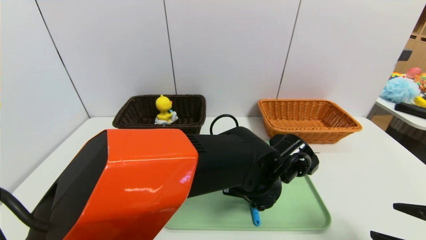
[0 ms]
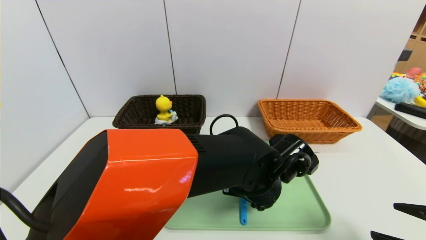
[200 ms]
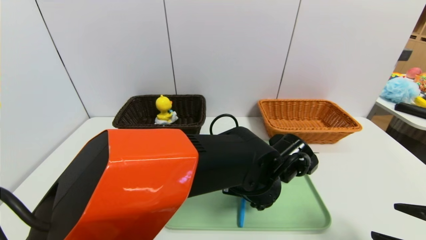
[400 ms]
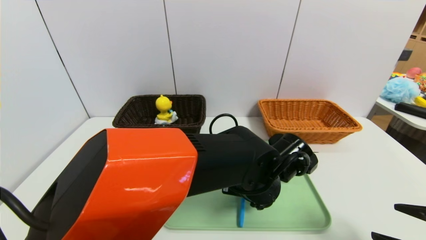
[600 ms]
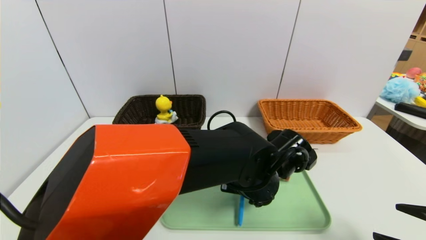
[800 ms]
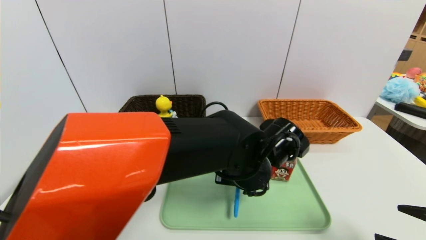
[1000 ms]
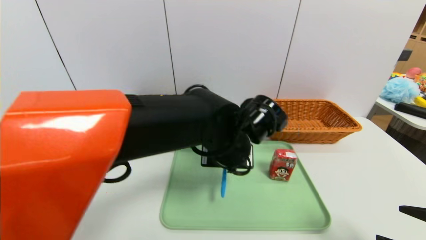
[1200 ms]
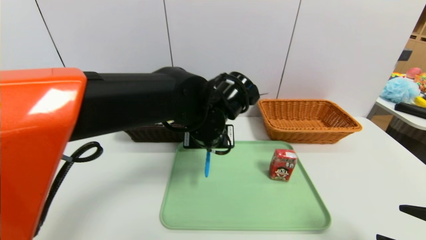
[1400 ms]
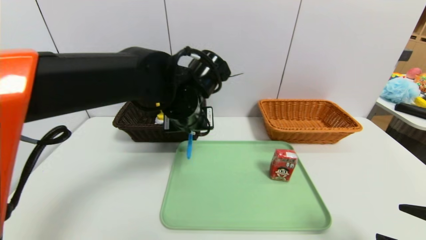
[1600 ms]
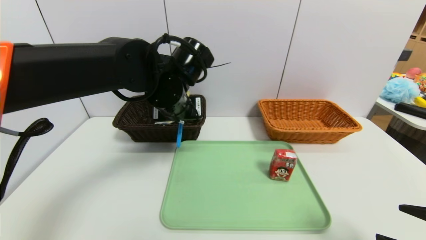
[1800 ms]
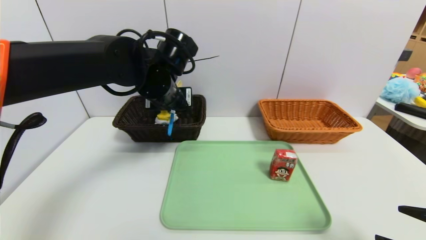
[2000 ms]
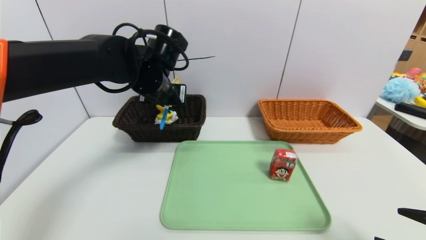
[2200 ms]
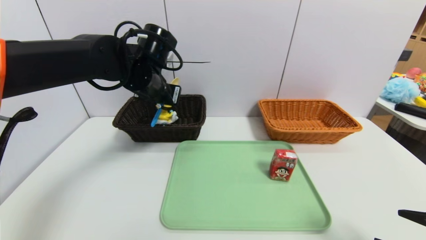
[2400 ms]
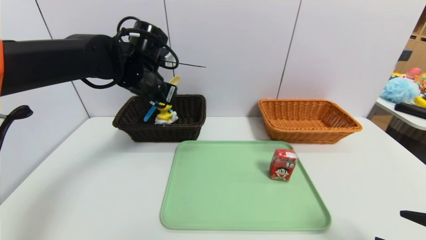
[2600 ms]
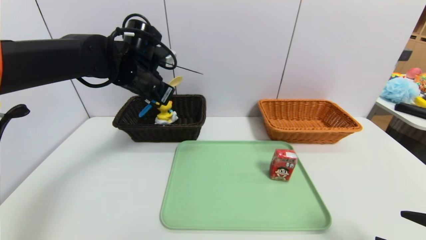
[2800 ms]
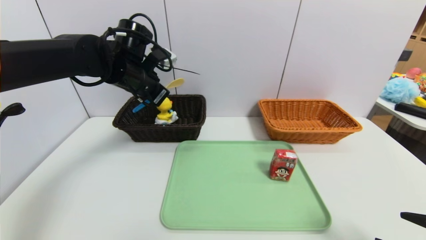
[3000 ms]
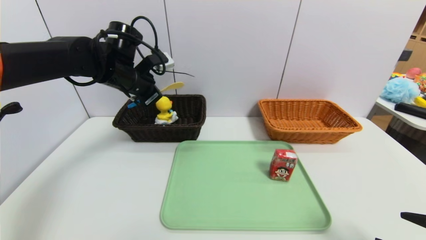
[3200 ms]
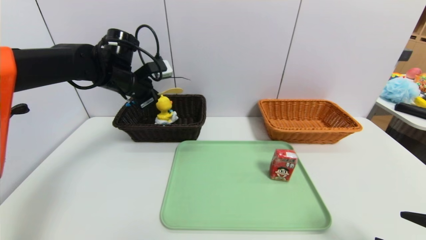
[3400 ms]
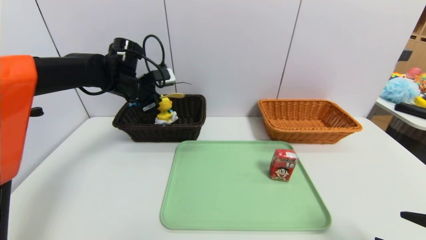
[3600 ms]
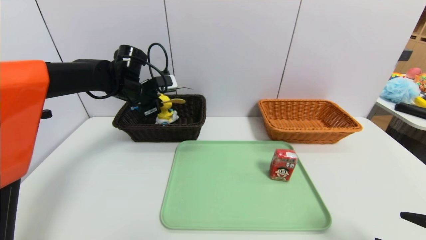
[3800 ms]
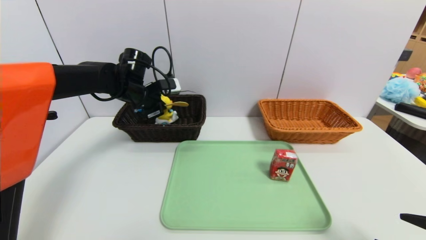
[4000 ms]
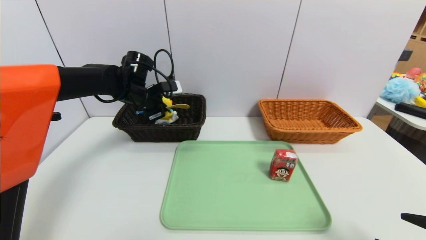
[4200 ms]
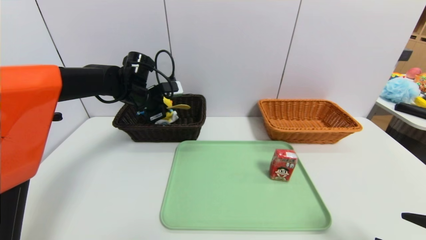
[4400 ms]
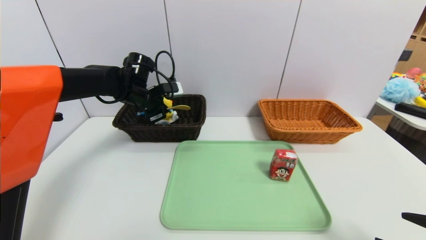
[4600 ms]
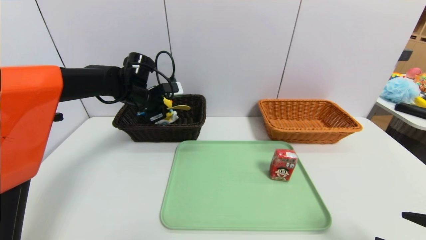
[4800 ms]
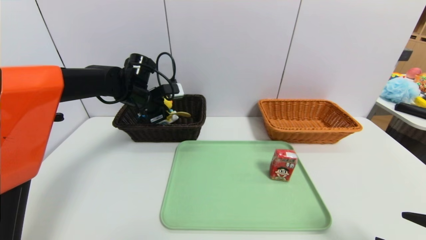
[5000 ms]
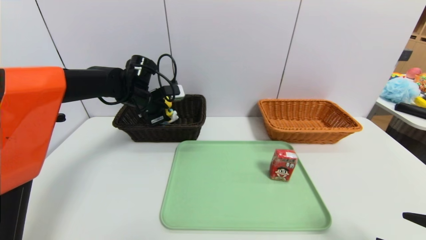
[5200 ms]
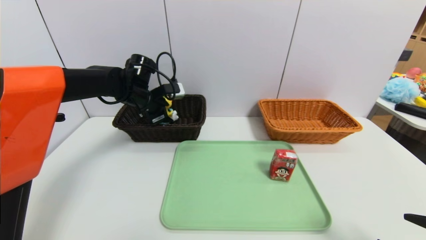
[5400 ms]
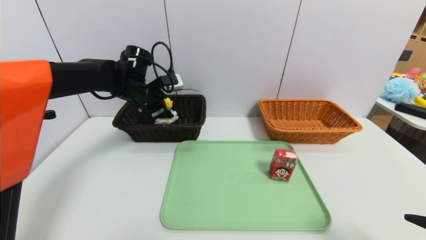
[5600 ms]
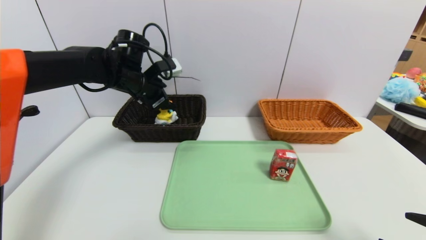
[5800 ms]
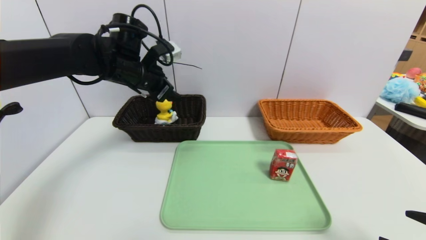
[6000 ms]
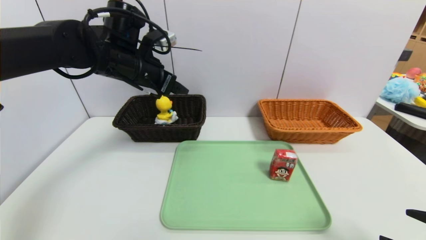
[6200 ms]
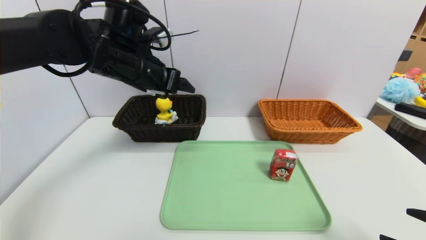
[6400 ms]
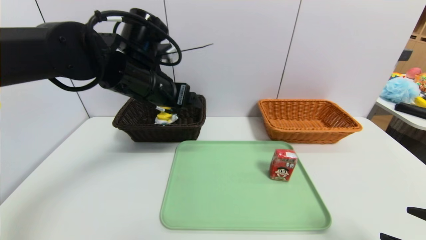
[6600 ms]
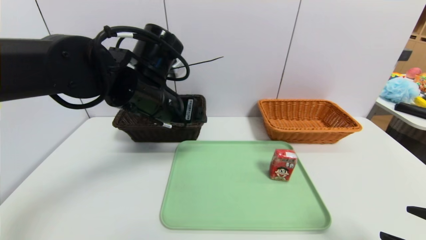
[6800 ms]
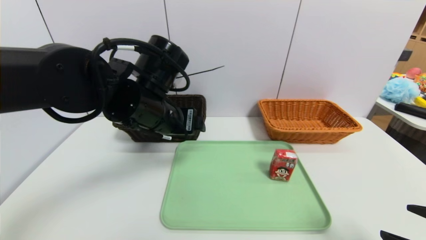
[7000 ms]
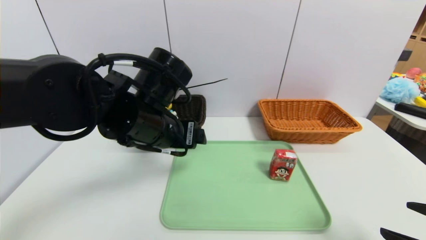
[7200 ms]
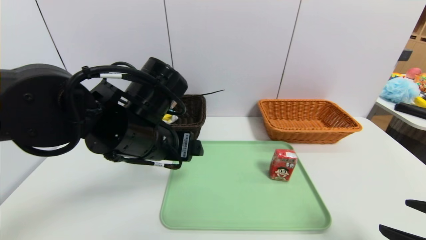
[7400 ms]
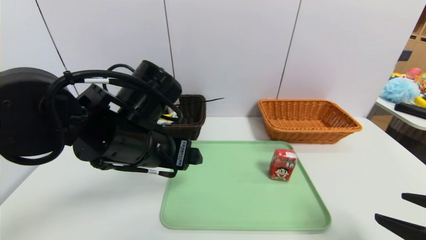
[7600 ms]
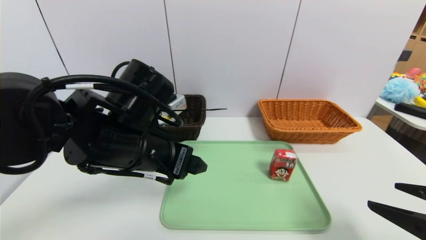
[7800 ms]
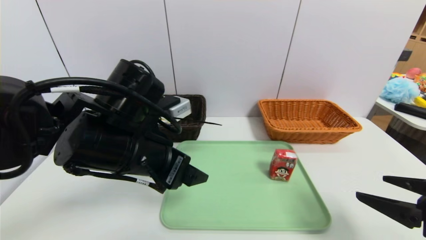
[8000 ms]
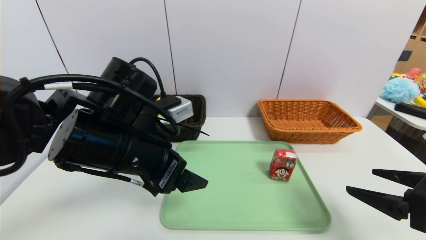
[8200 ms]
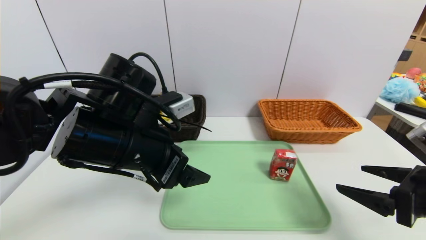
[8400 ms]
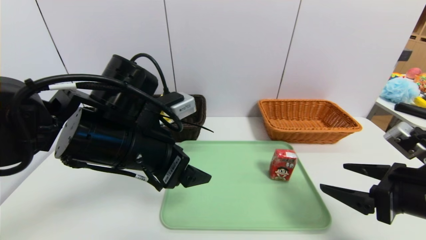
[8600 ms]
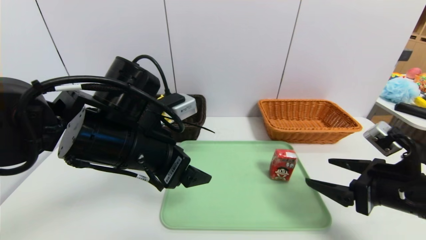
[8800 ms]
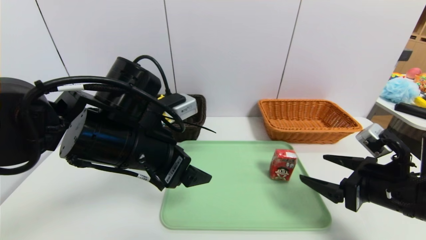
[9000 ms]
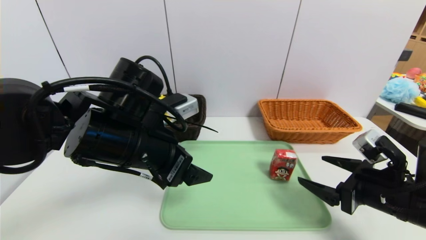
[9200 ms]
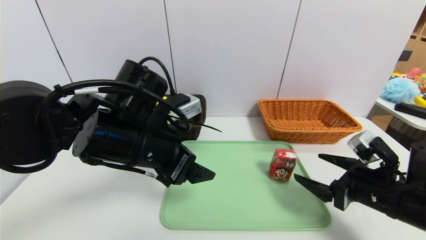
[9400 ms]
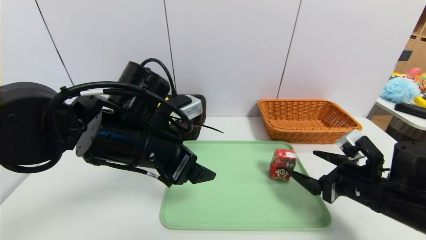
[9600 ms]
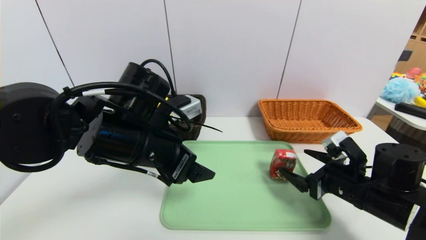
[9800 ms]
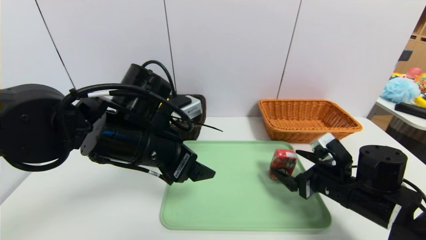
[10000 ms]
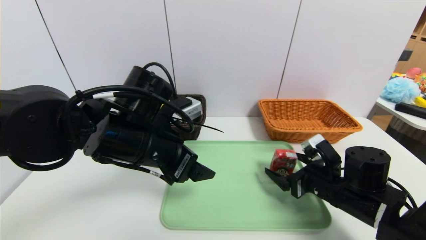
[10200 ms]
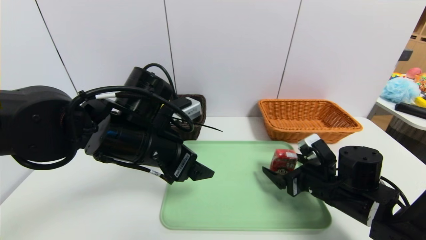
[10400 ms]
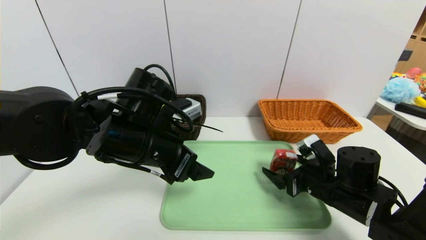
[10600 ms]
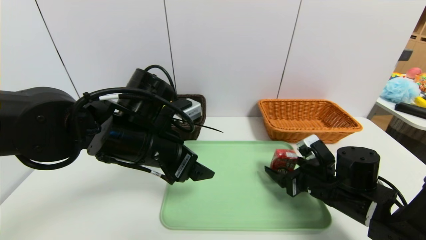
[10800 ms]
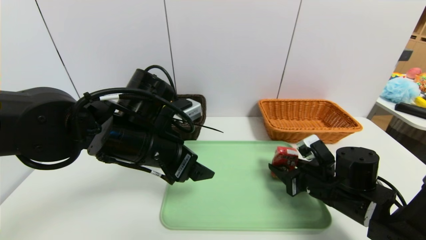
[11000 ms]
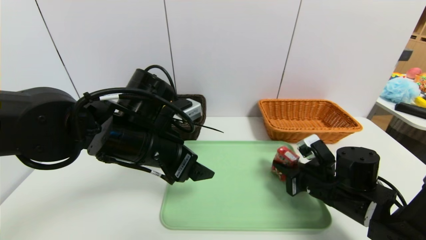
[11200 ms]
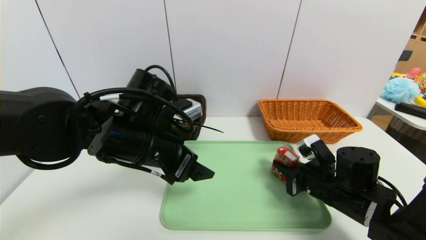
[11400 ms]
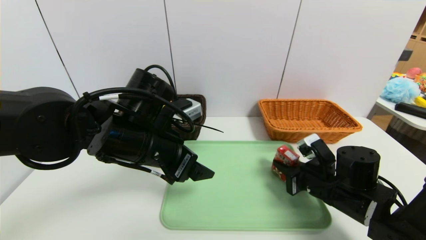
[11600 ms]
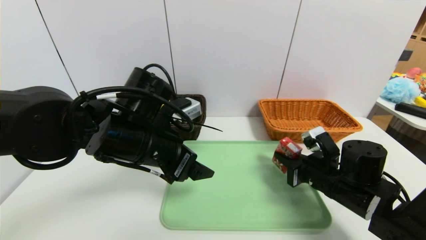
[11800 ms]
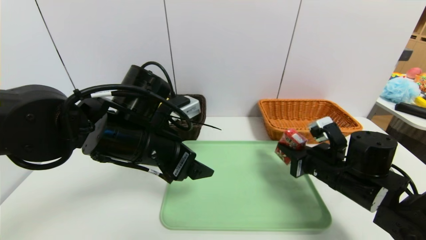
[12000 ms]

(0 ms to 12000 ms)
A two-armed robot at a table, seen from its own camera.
Task of the whole recording: place the food in the right basket with the right gripper, and place the non food items in the left basket with the left gripper.
Step, 0 ms - 5400 ms: Grasp the spoon and put it in the left basket.
0 ms - 1600 ms: The left gripper moves to the left, upward and forward, some 20 cm, and closes.
1600 ms - 3000 ms: The left gripper heads to the left and forward, covering about 15 cm.
3000 ms - 4400 ms: The left gripper goes roughly 10 cm downward and forward.
4400 ms - 6000 ms: The left gripper shifts roughly 10 cm upward and backward, and opens.
6000 ms - 7600 ms: The left gripper travels backward by some 15 cm.
7600 ms - 9000 ms: The right gripper travels forward by some 10 cm.
9000 ms - 10400 ms: The right gripper goes about 10 cm downward, forward and to the left.
10400 ms - 12000 ms: The right gripper closes.

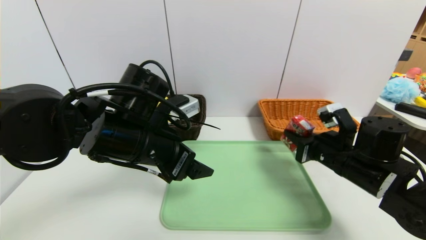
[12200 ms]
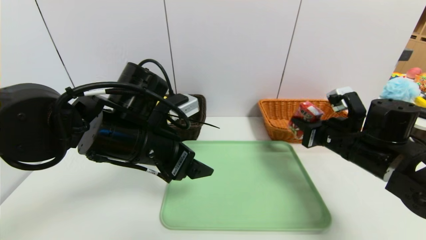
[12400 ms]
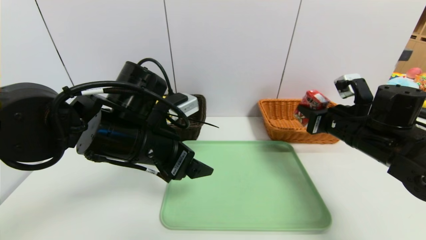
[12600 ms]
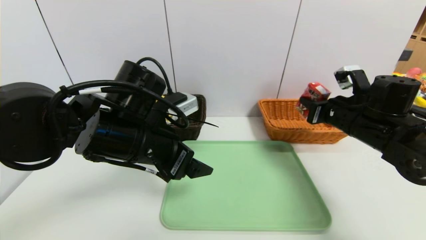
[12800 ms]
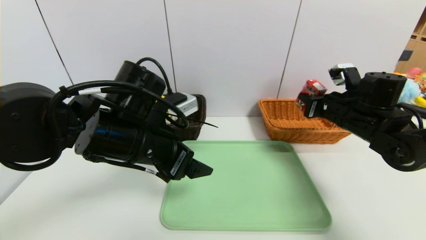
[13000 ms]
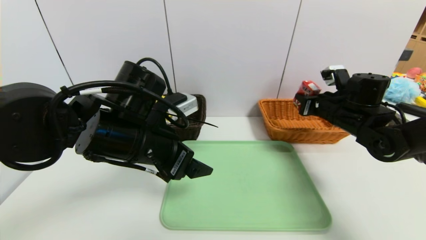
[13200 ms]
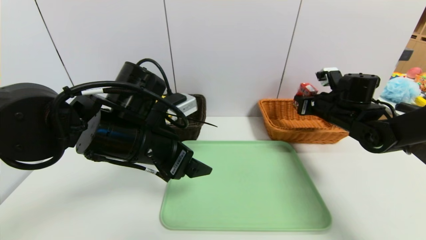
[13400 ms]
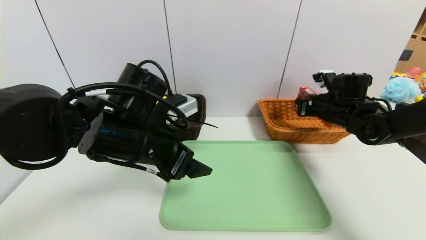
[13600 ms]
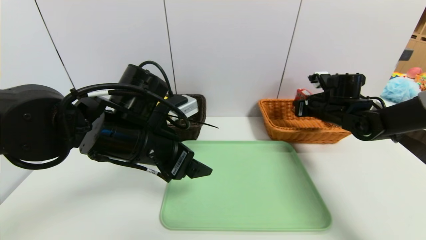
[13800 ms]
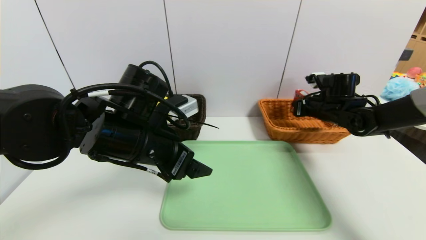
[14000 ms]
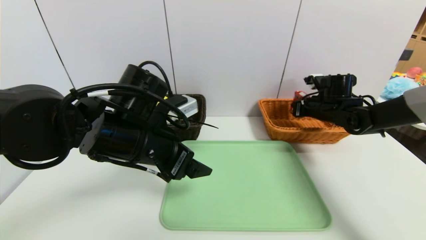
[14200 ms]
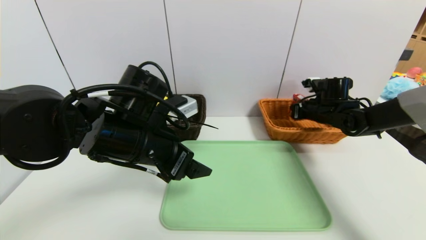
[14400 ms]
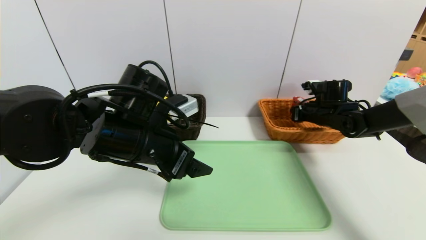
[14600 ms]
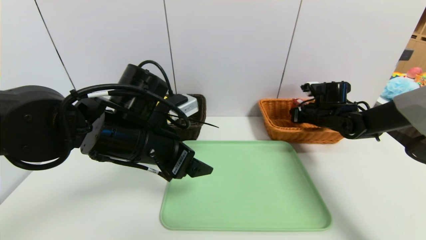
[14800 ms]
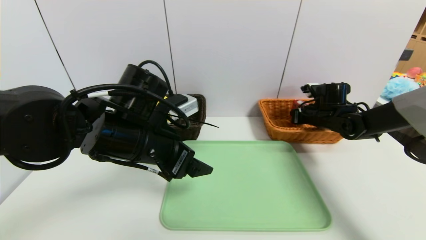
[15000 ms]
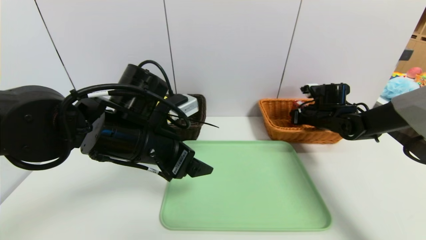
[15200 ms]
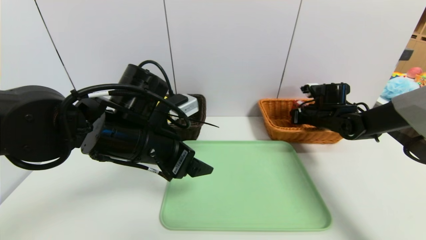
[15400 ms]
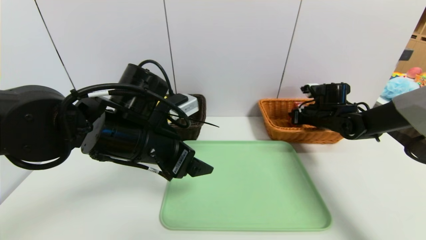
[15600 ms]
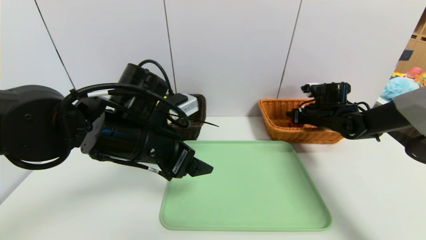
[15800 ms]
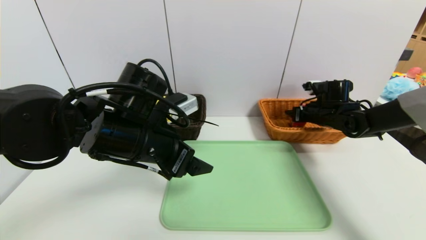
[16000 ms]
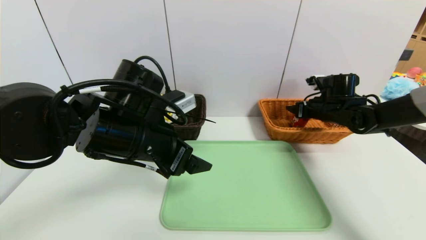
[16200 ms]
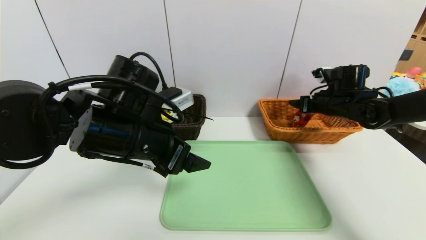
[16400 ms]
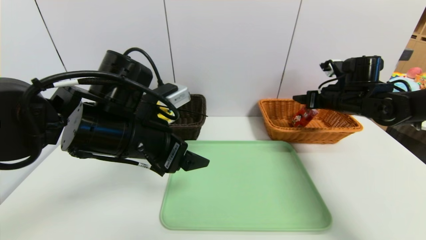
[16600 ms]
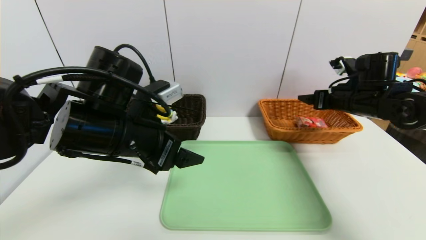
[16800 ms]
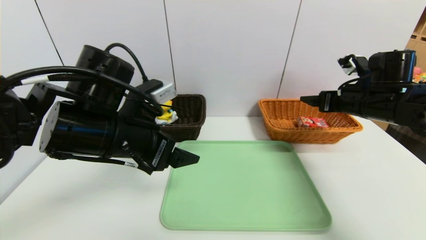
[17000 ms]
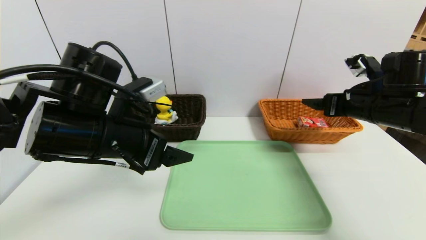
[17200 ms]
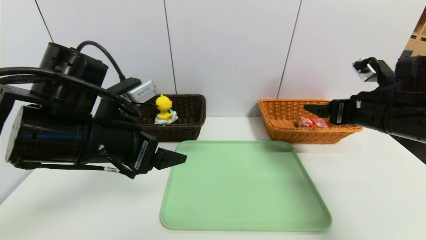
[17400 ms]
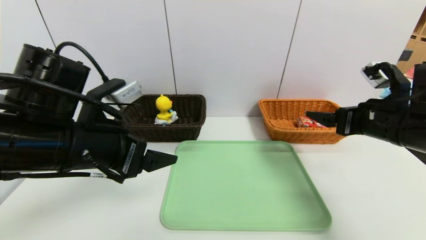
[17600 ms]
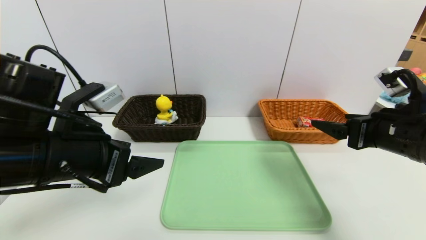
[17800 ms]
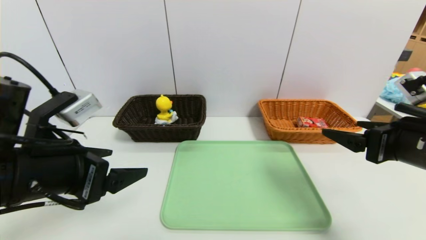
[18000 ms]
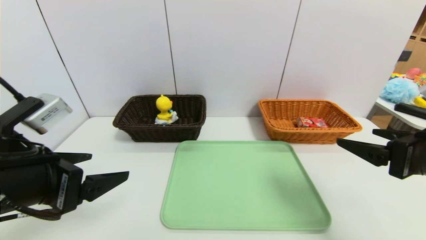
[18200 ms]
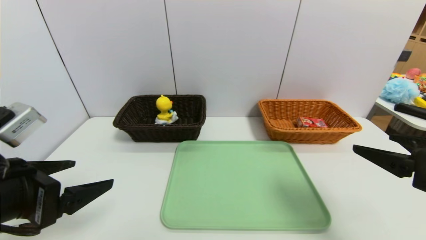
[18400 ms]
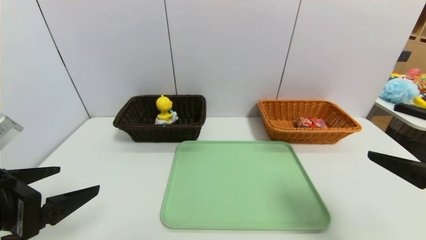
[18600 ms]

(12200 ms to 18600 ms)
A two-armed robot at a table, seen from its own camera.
Task of the whole recording: place the food in the right basket with the right gripper, and place the non food items in the left basket with the left gripper.
Step, 12200 ms - 16200 ms: Grasp the milk and put it in the right basket.
12200 ms - 13800 ms: The right gripper goes some 15 cm forward.
13800 ms - 15400 ms: There are only small adjustments of the grippers.
15400 ms - 17000 ms: The right gripper shifts roughly 15 cm backward and upward, and opens up.
17000 ms - 18600 ms: The right gripper heads backward, covering some 25 cm, while the left gripper travels backward and to the left by about 15 cm.
